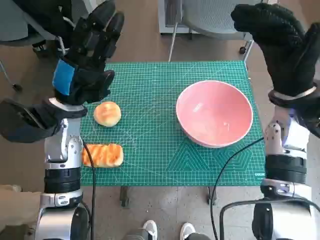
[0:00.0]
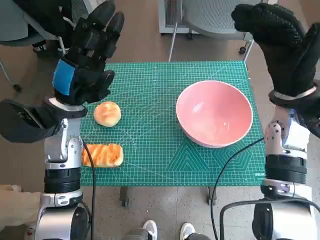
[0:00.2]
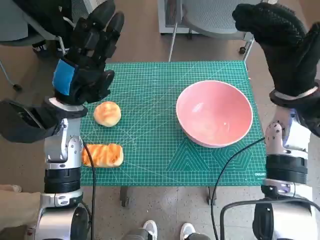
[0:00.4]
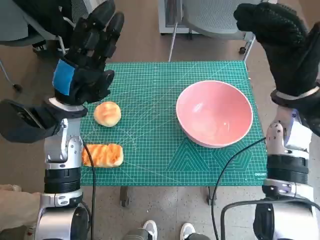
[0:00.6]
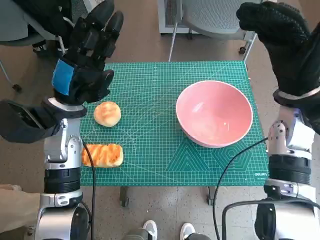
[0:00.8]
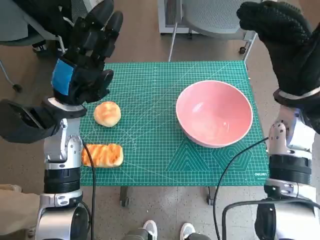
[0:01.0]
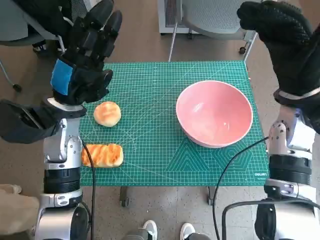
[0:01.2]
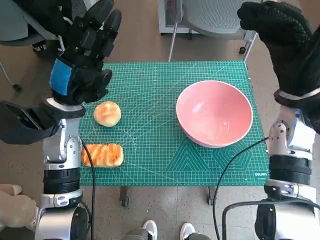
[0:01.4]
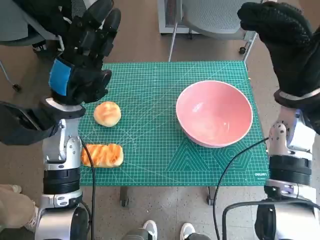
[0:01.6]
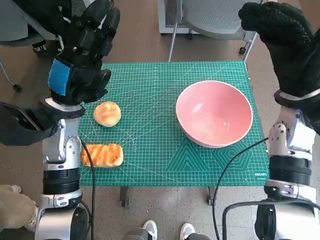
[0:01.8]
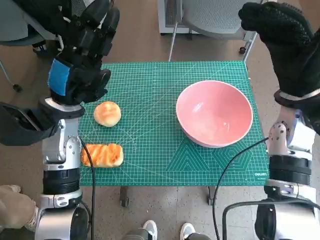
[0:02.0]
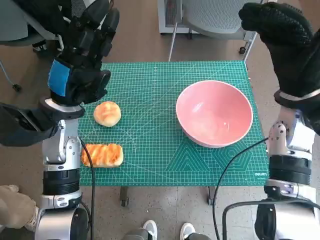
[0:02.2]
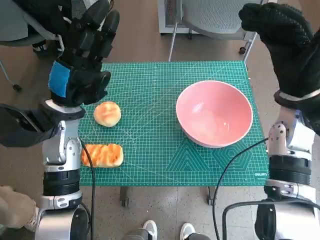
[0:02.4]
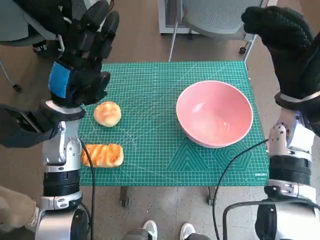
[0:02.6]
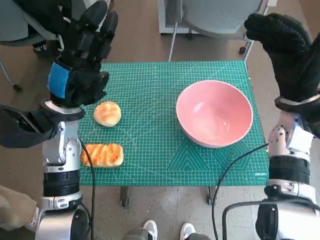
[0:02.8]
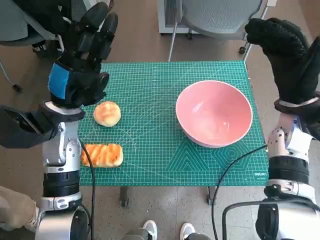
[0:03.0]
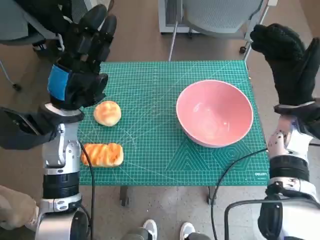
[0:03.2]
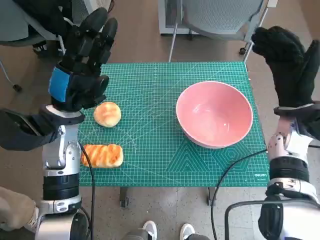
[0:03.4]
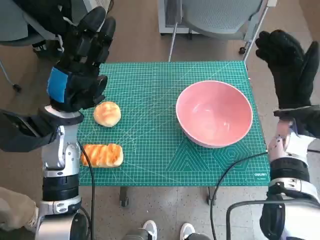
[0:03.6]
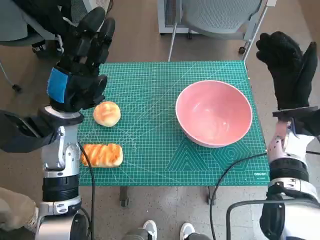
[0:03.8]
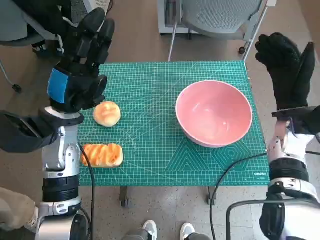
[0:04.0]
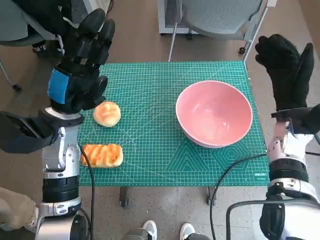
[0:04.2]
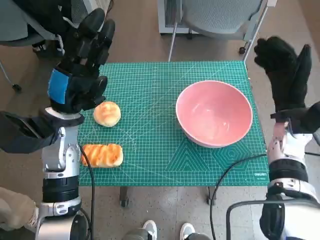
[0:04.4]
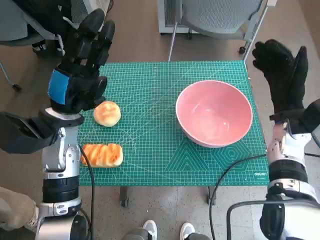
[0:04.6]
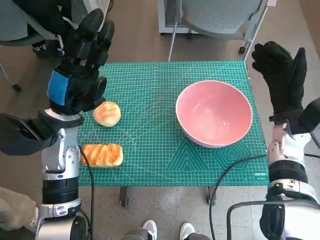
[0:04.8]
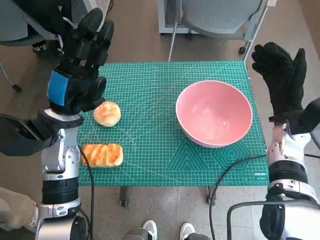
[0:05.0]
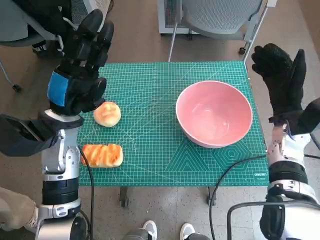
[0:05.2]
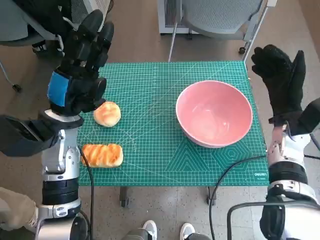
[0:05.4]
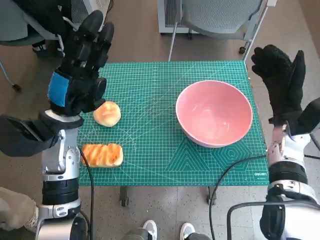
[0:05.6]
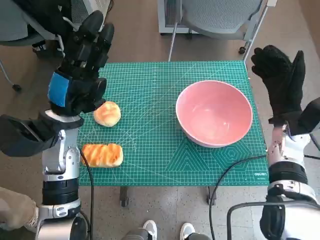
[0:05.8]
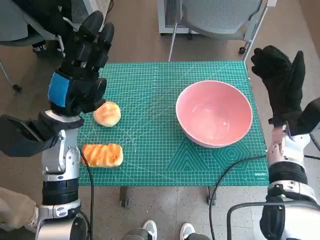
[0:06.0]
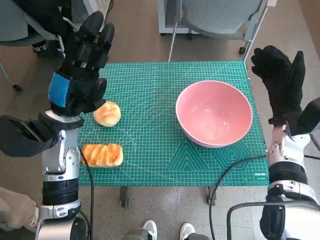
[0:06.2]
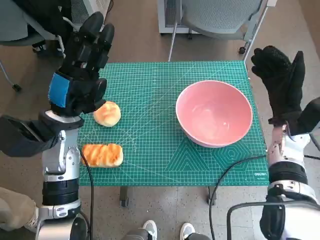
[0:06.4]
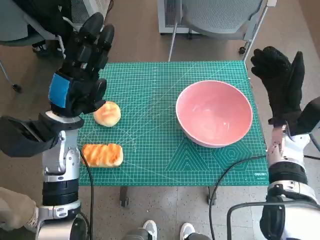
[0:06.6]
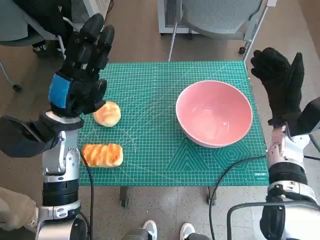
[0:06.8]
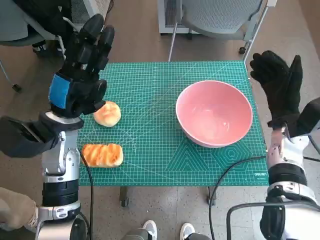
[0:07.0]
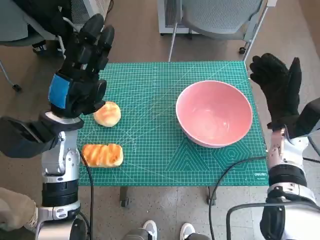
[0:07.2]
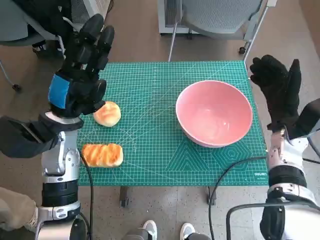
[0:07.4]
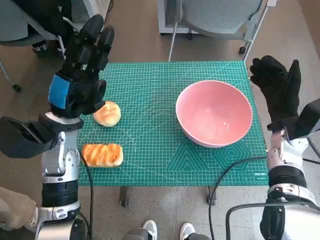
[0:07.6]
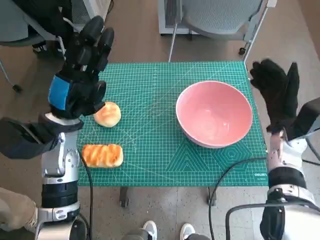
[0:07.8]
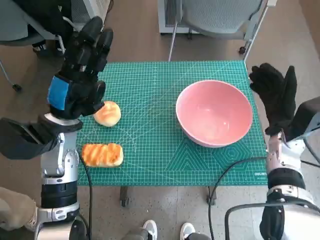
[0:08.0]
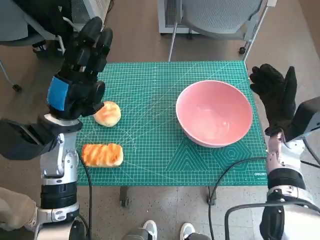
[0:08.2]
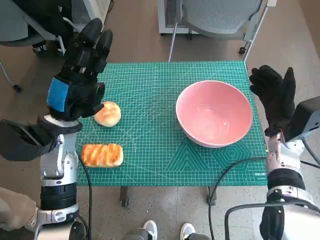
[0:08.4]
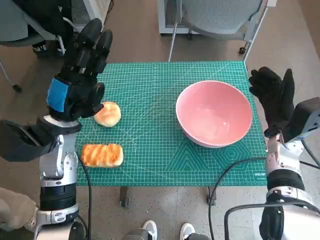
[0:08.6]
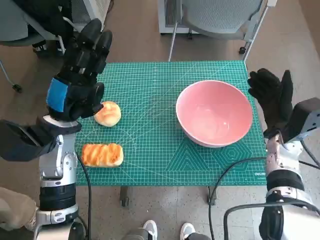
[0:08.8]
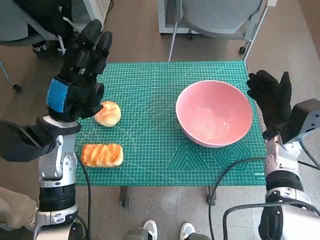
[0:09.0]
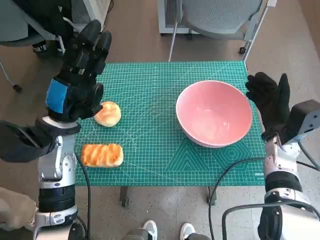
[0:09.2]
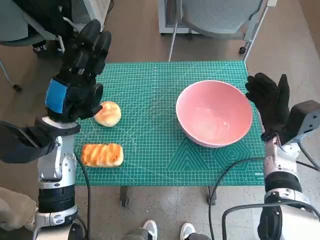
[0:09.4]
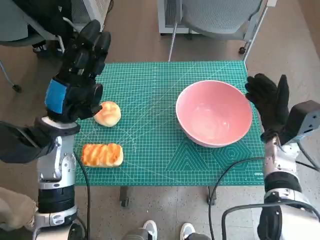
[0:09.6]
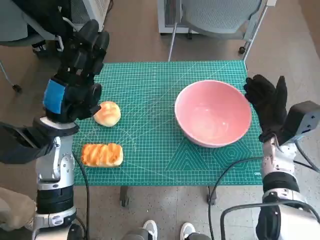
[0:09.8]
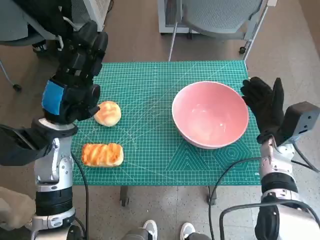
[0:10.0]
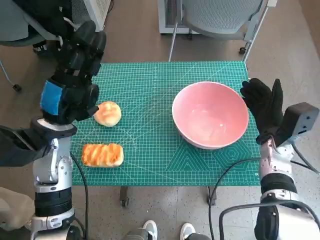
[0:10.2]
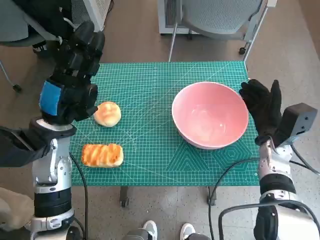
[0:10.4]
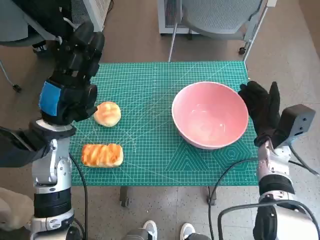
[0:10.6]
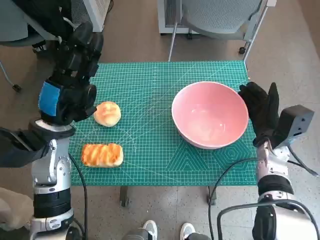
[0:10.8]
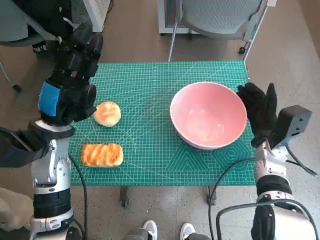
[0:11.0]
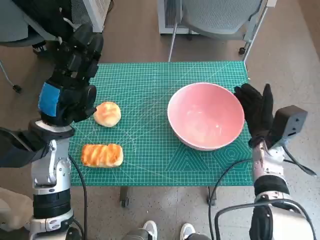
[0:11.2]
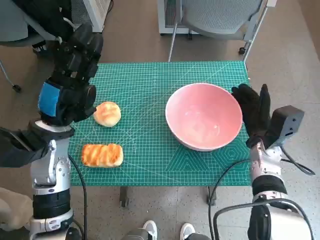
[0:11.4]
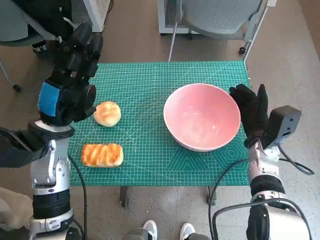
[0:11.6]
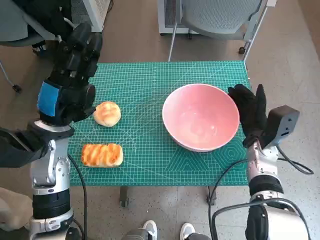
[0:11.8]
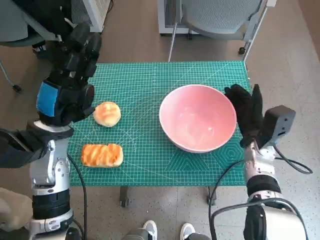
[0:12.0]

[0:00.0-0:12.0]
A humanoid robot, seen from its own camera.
0:01.6 to 0:03.0: The hands stay close to where they were, moving slightly.
0:04.4 to 0:07.6: There are only small adjustments of the hands.
0:07.6 to 0:10.4: The hands move only a little.
0:10.4 to 0:12.0: The hands move only a little.

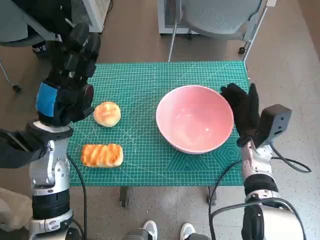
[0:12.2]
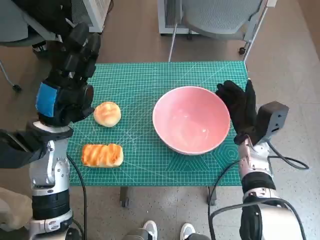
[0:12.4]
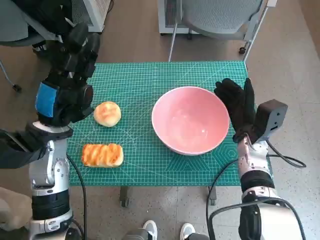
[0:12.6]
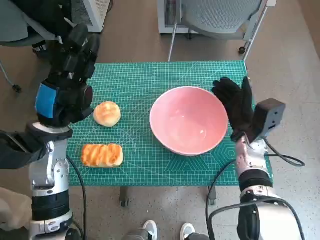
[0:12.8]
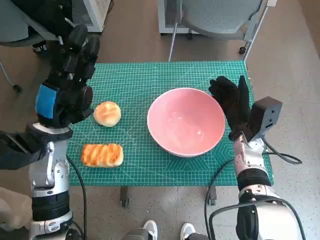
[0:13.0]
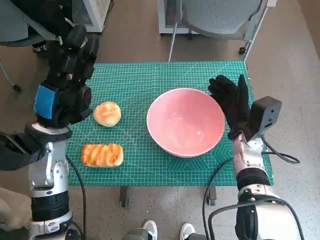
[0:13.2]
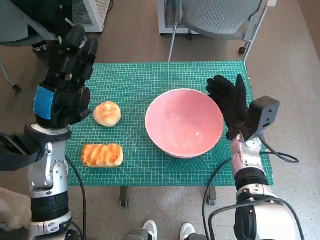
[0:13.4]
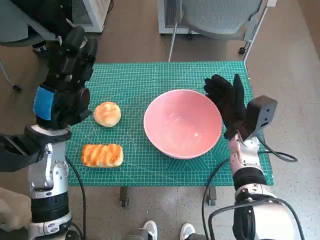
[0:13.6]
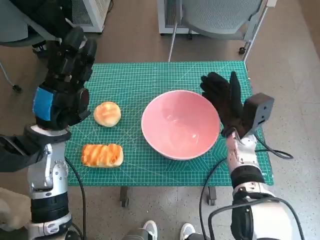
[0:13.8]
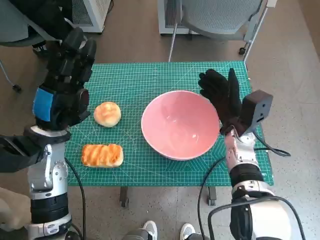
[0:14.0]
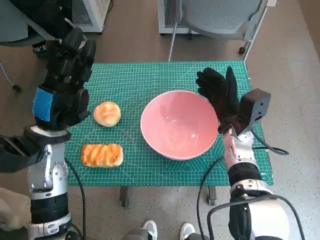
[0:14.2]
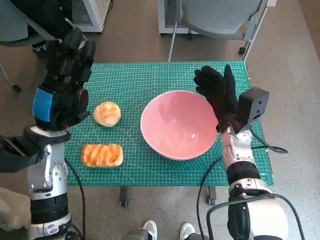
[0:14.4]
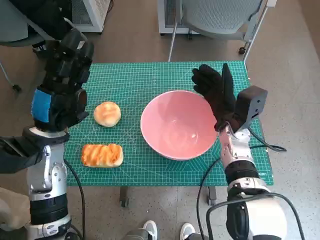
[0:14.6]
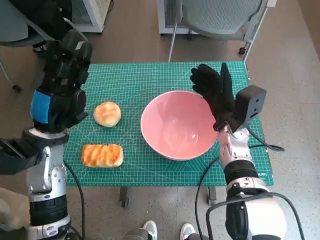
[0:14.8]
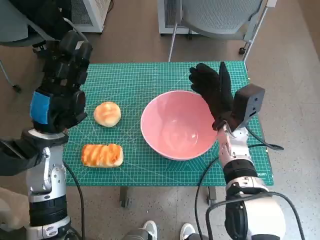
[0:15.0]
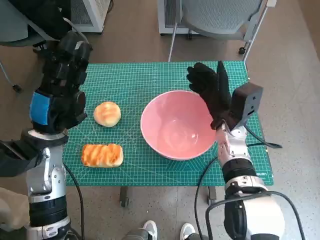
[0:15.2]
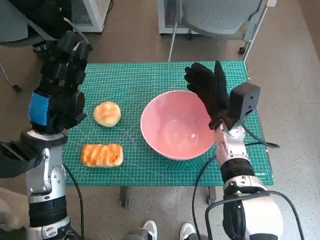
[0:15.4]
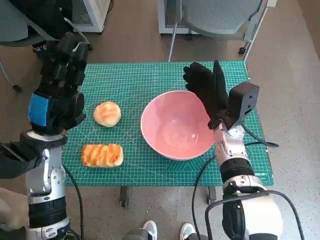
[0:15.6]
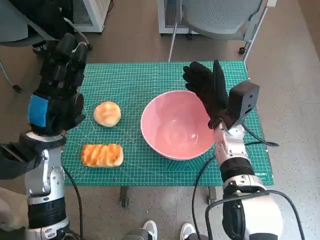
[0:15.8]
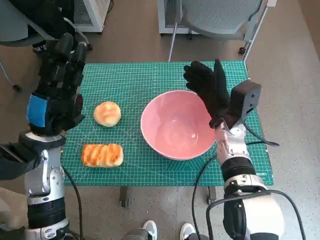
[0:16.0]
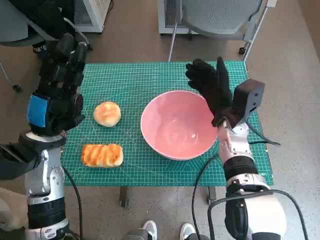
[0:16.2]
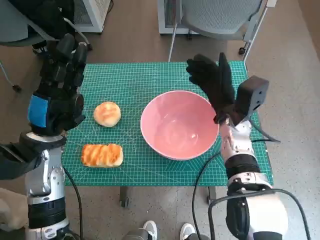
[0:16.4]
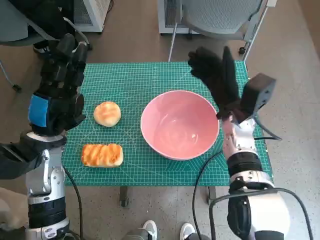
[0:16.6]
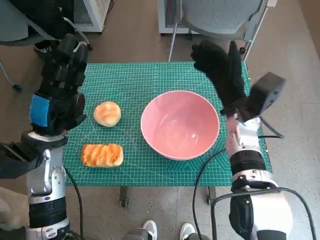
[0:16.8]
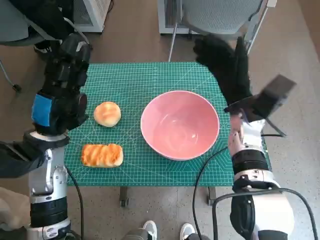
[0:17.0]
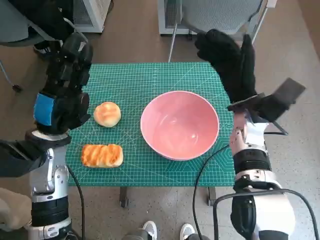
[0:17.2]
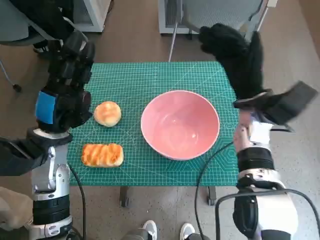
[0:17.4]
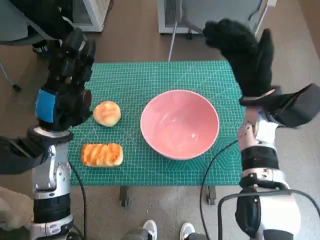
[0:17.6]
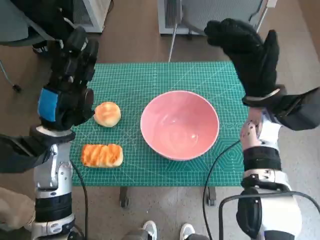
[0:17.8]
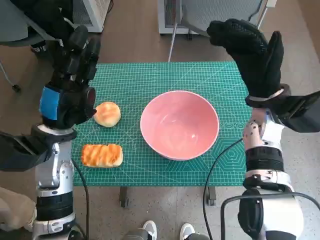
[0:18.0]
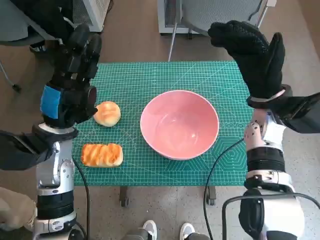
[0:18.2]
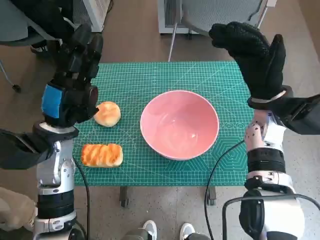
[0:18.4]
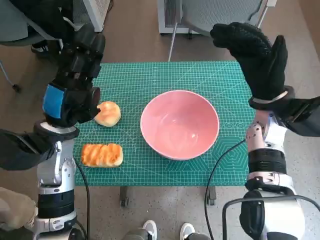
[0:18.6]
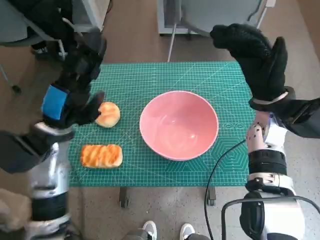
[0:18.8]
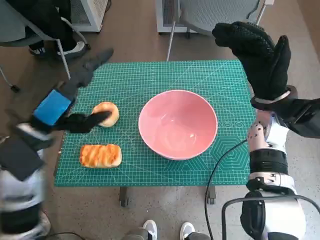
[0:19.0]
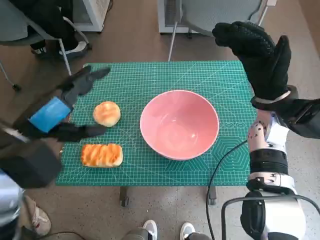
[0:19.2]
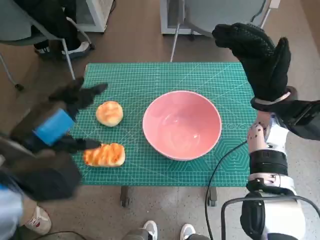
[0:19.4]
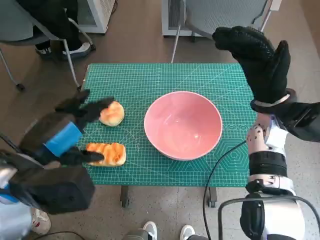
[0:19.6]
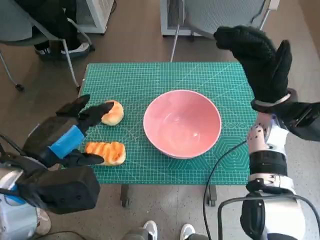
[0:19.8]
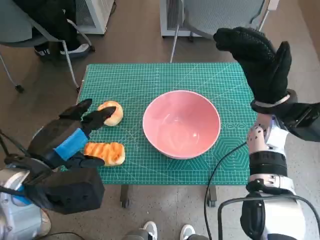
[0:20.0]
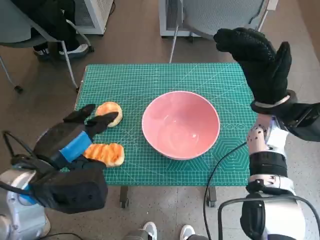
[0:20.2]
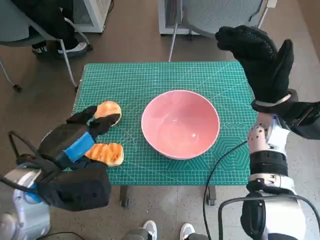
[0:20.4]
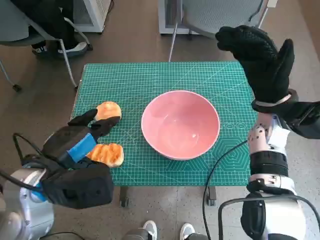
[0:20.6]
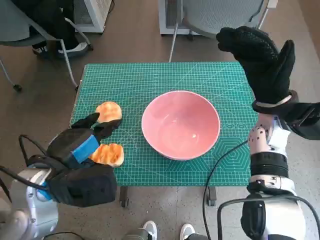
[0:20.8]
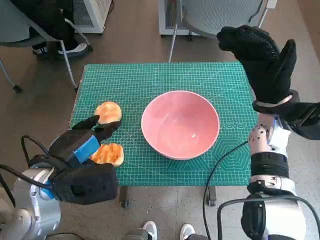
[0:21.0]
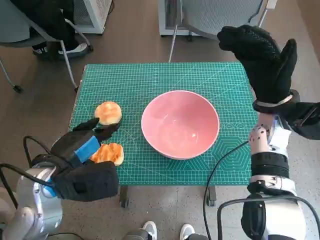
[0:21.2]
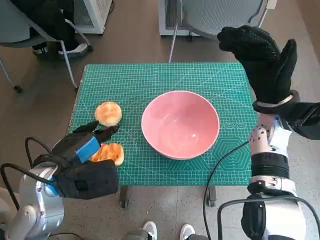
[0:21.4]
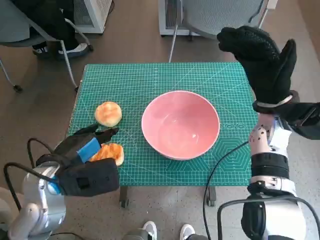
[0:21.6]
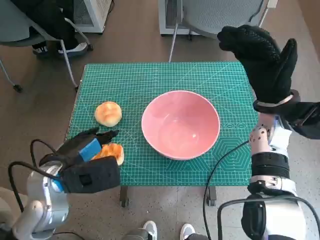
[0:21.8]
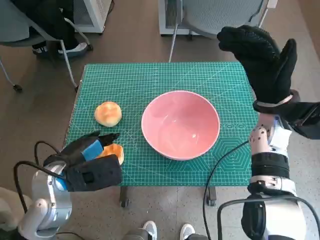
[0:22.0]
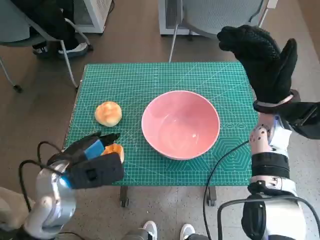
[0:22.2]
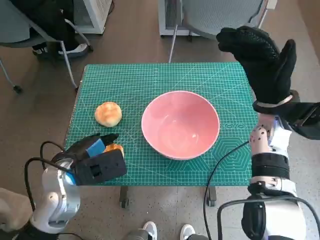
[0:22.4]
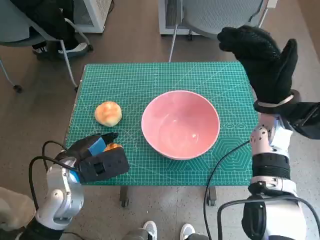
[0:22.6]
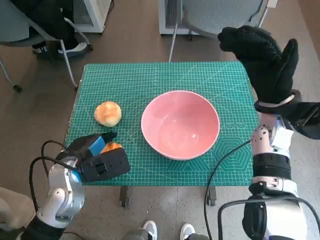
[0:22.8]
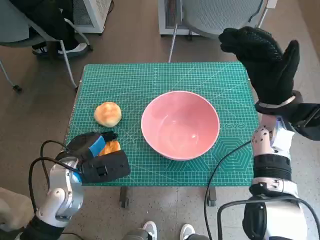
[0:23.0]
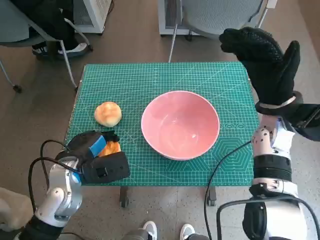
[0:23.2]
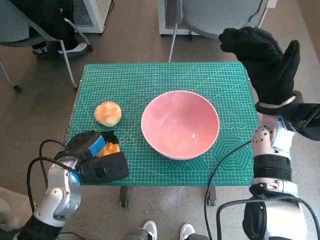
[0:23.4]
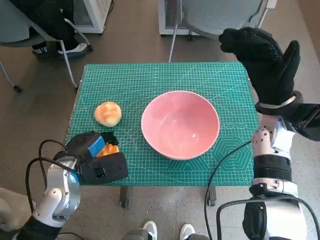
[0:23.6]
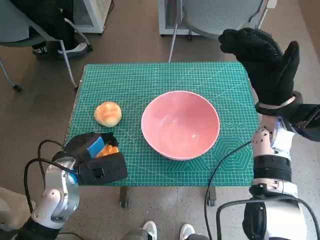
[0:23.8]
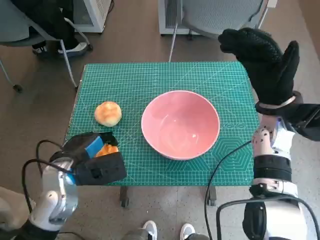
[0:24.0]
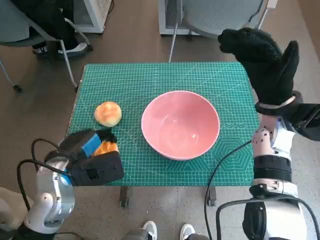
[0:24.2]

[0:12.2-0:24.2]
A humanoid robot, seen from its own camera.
Step, 0:12.2 to 0:16.4: Move the pink bowl to the center of table with right hand.
Step, 0:16.6 to 0:23.2: Grasp the long bread with left hand.
0:13.8 to 0:16.6: The hands move only a little.
0:16.6 to 0:18.2: The right hand is displaced upward by some 5 cm.
0:18.2 to 0:19.8: The left hand goes some 10 cm backward and upward.
0:19.8 to 0:21.2: The left hand moves about 5 cm.
0:21.2 to 0:22.6: The left hand travels downward by about 5 cm.
0:22.6 to 0:24.2: There are only small adjustments of the hands.
